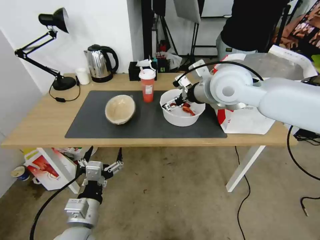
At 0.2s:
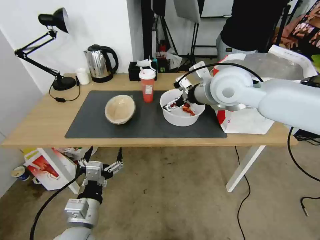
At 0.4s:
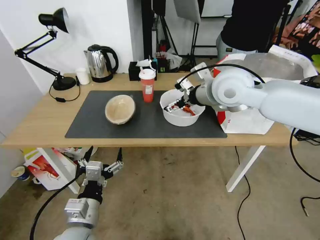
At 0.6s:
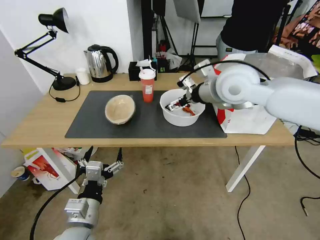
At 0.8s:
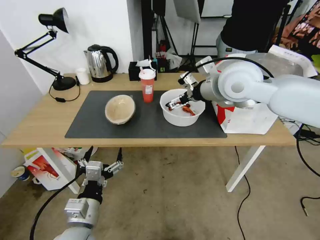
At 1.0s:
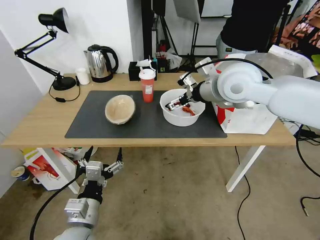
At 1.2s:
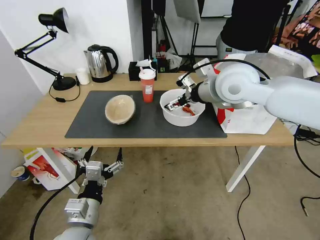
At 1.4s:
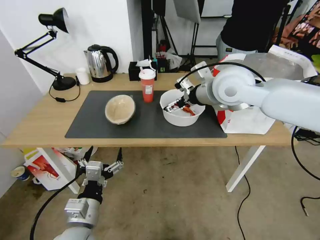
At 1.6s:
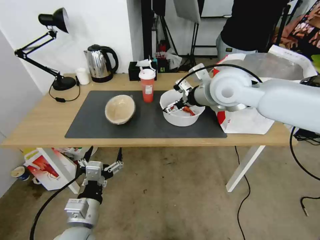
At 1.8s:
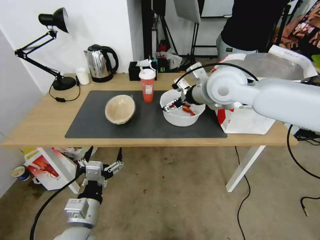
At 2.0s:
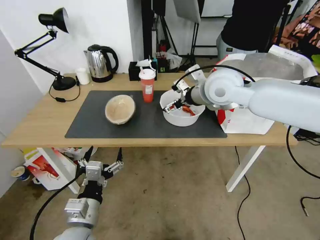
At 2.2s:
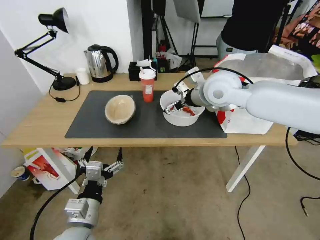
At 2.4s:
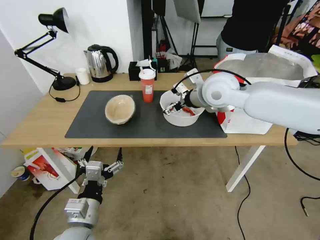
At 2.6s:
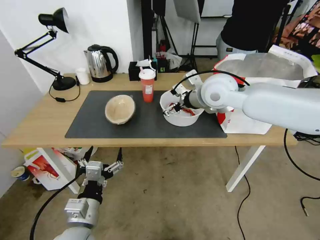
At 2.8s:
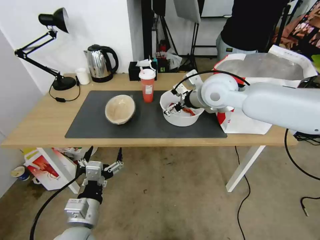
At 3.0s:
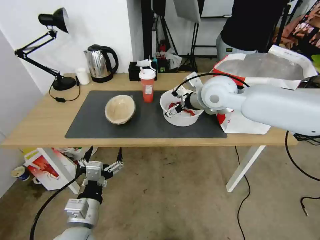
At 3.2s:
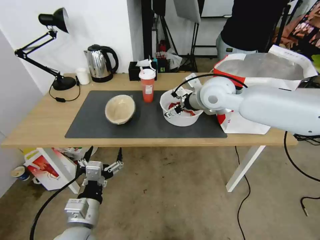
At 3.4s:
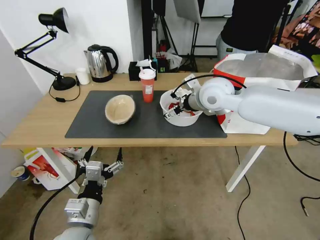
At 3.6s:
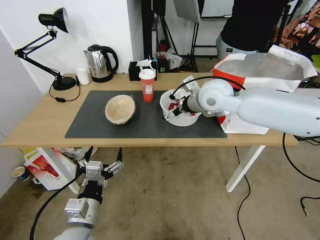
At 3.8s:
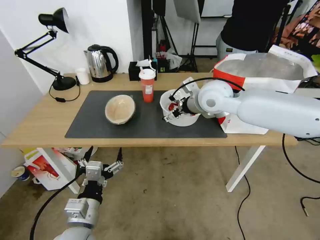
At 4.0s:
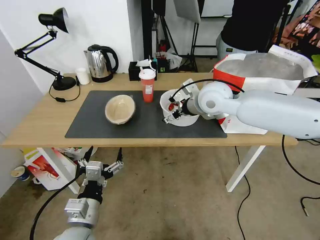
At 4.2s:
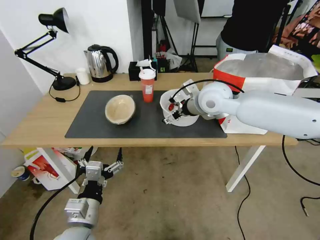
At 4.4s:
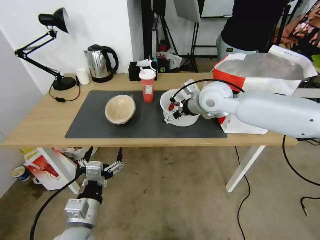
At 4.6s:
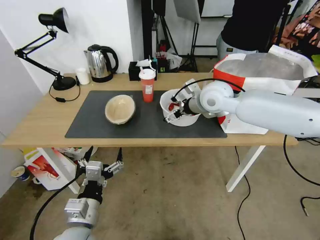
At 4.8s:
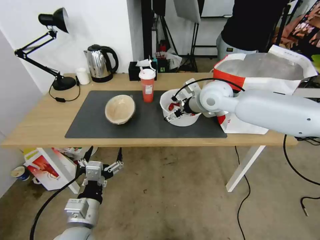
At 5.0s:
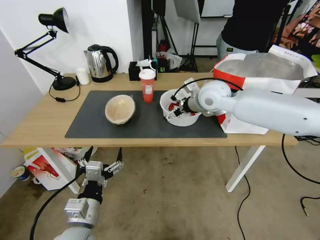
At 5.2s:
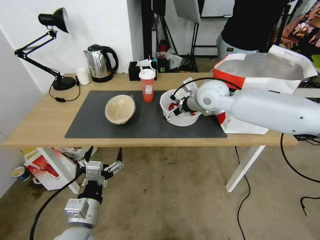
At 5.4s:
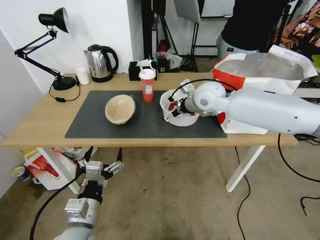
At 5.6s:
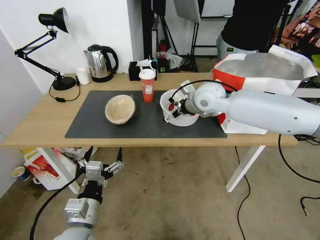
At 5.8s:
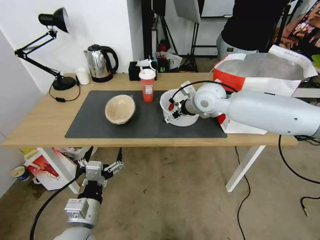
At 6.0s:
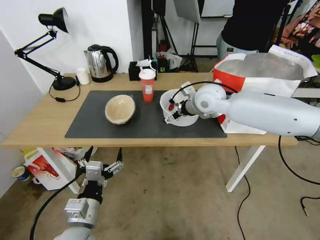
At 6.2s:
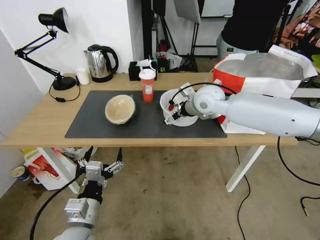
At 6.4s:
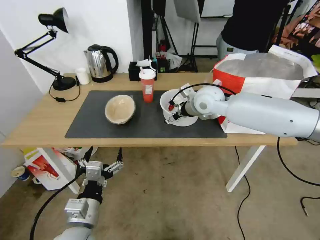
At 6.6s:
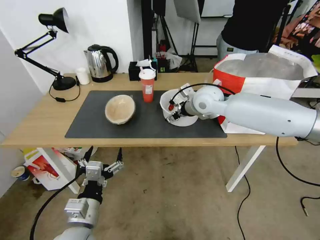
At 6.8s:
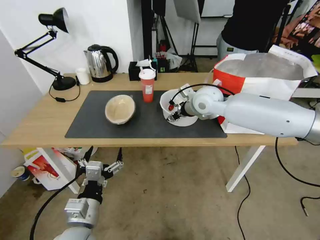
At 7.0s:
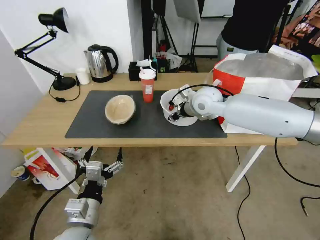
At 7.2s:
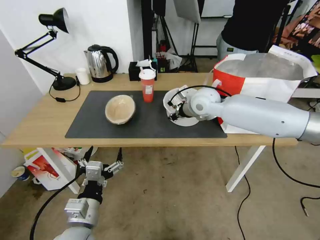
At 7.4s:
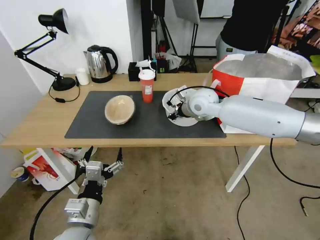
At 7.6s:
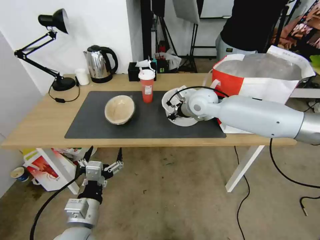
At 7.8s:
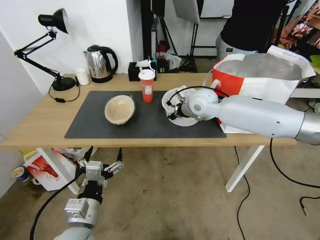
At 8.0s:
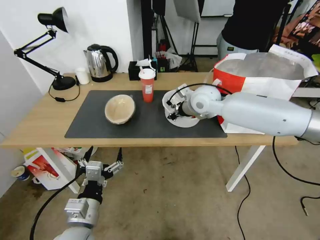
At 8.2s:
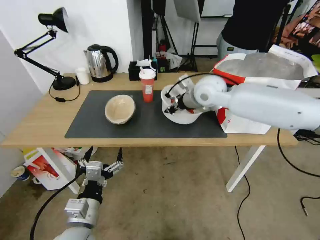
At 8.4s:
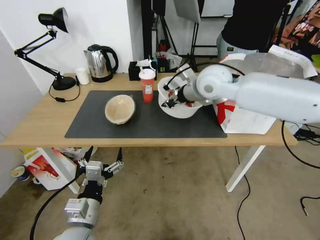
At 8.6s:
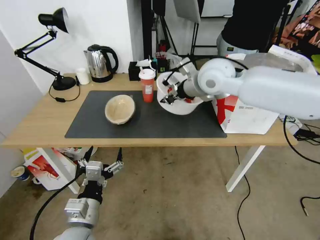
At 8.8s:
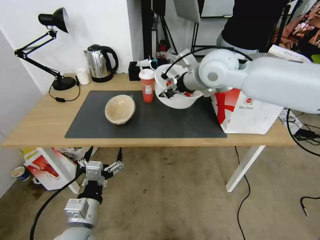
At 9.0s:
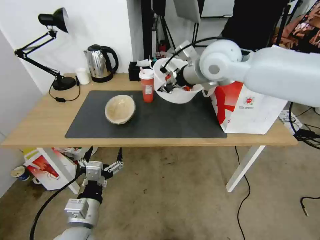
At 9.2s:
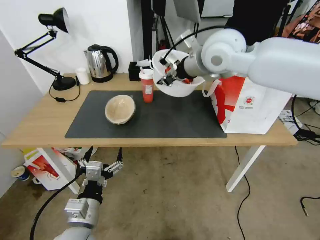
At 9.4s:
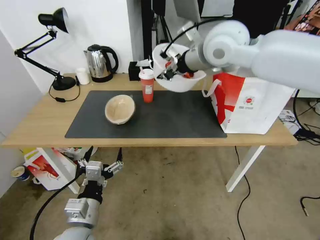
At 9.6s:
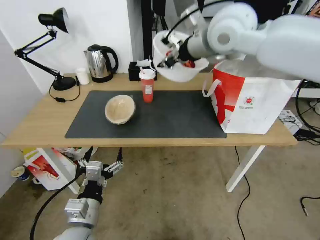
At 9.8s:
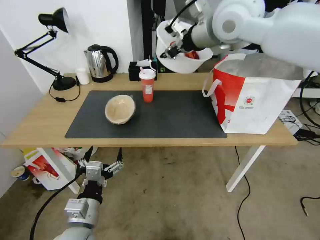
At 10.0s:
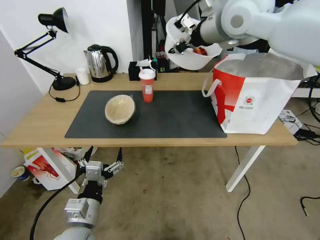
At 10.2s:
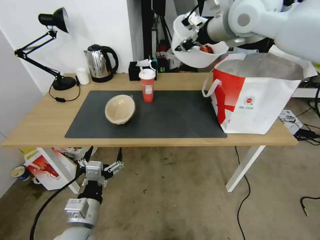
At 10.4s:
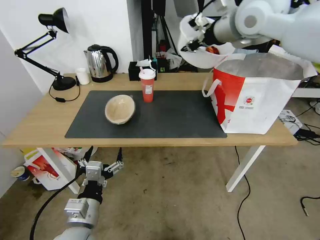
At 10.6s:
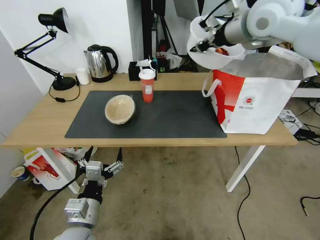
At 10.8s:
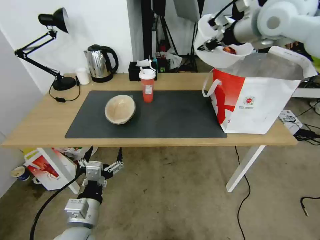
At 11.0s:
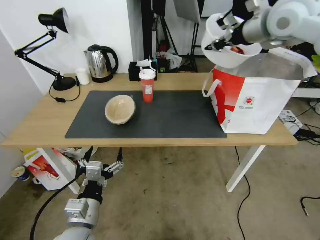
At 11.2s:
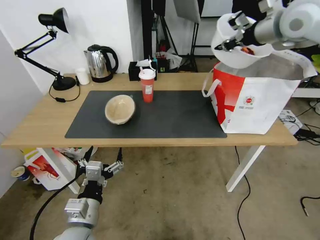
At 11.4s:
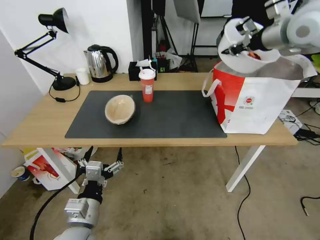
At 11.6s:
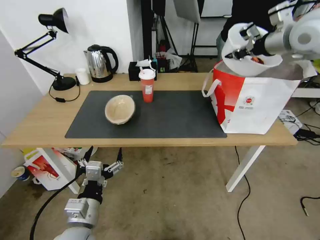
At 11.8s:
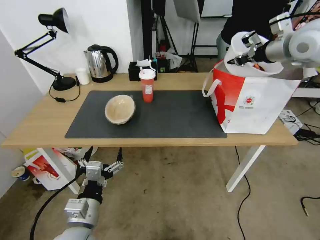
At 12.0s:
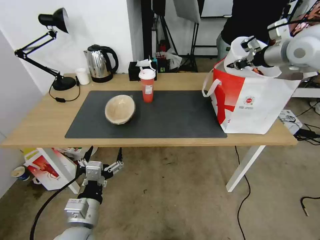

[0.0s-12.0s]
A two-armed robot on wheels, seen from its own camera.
Task of the whole recording: Pick up the trash from the table and place it into the takeout bag.
0.0s to 3.0s: There are only small adjustments of the grippers.
3.0s to 6.0s: The grippers stay close to where they were, moving slightly.
6.0s to 7.6s: The right gripper closes up.
7.6s to 9.0s: The right gripper moves upward, some 15 cm.
9.0s to 10.4s: The right gripper shifts about 10 cm upward and to the right.
10.4s to 12.0s: The right gripper travels to the right and downward by some 15 cm.

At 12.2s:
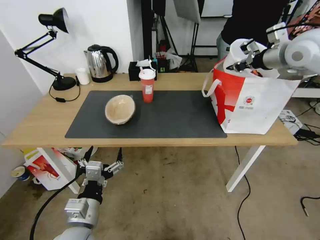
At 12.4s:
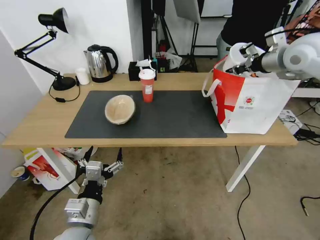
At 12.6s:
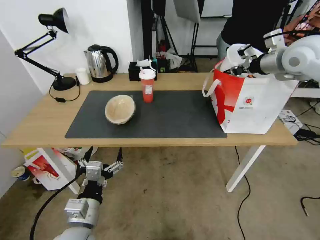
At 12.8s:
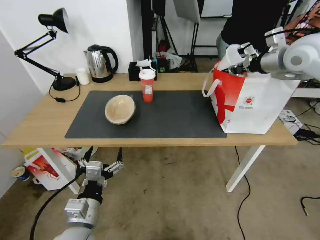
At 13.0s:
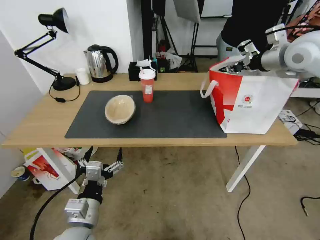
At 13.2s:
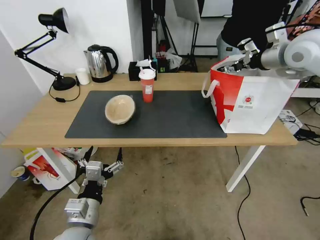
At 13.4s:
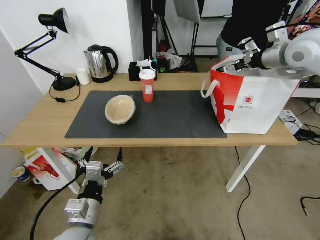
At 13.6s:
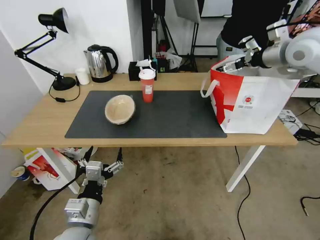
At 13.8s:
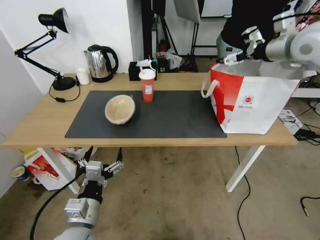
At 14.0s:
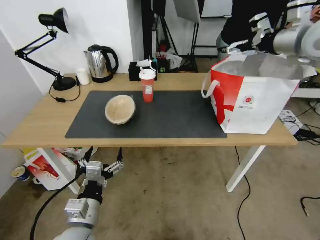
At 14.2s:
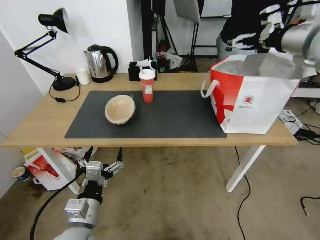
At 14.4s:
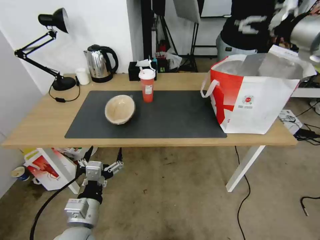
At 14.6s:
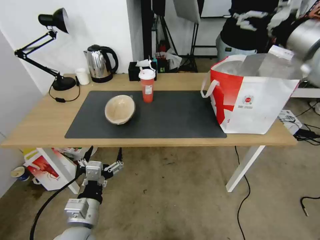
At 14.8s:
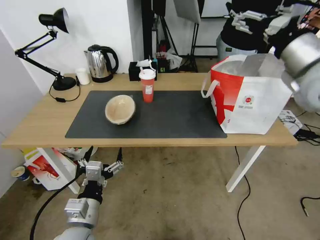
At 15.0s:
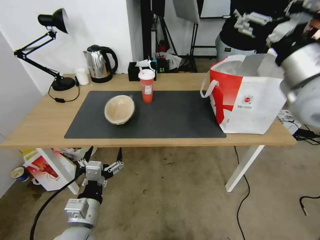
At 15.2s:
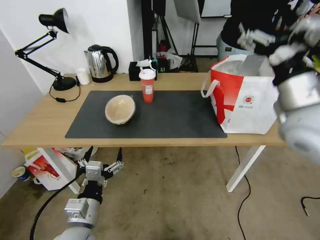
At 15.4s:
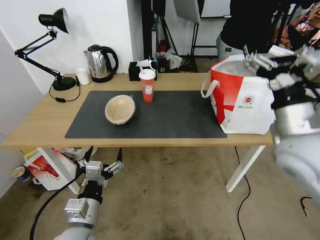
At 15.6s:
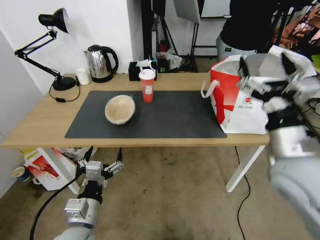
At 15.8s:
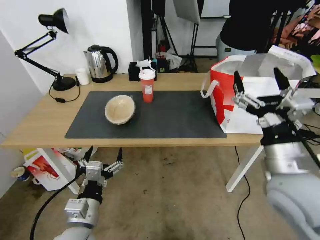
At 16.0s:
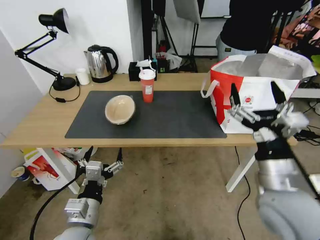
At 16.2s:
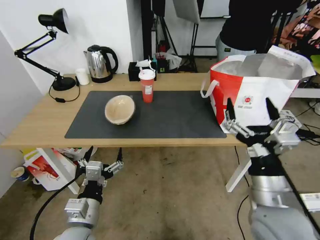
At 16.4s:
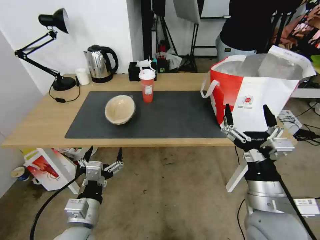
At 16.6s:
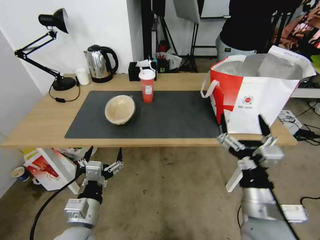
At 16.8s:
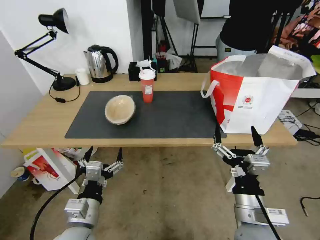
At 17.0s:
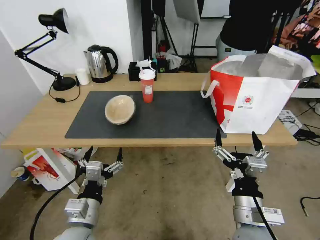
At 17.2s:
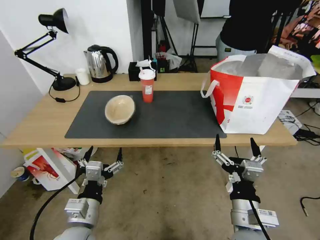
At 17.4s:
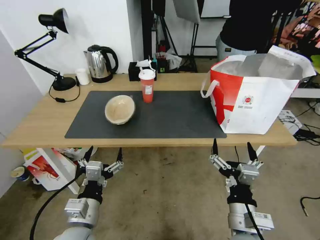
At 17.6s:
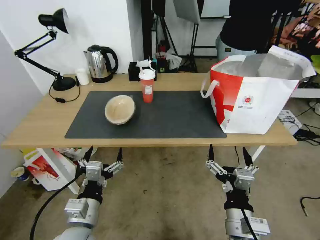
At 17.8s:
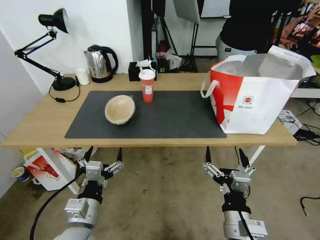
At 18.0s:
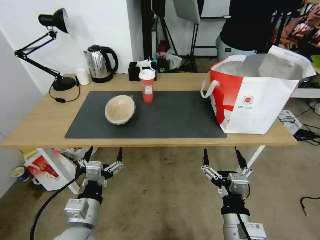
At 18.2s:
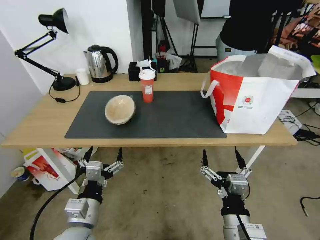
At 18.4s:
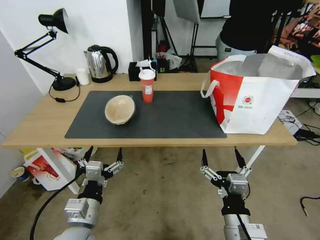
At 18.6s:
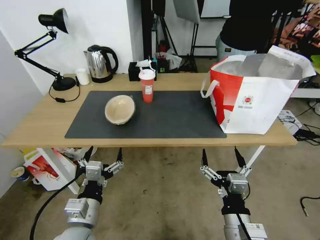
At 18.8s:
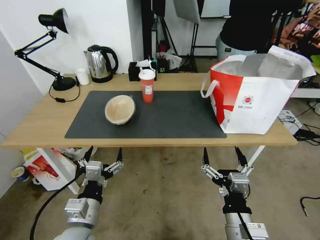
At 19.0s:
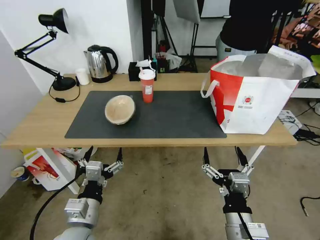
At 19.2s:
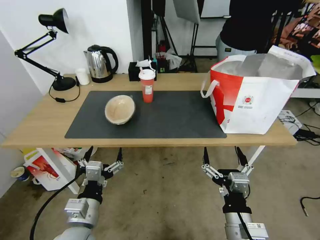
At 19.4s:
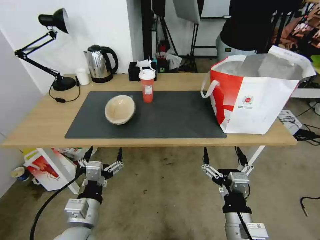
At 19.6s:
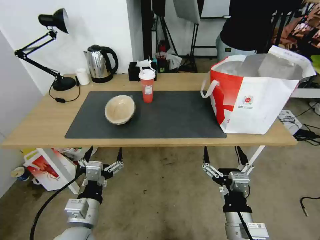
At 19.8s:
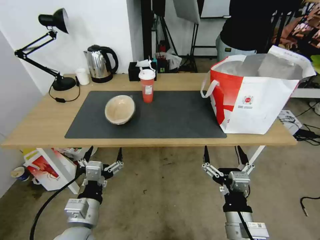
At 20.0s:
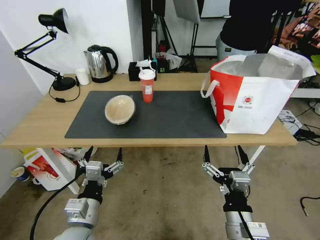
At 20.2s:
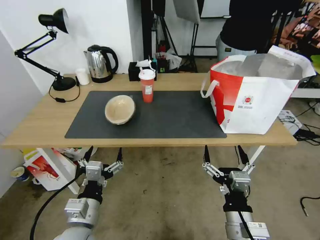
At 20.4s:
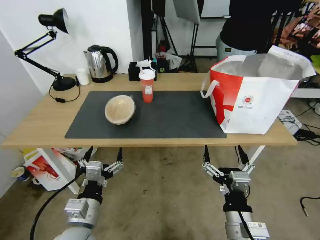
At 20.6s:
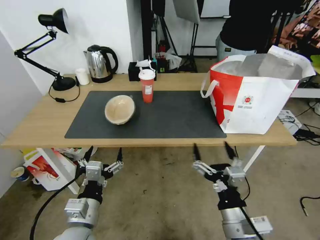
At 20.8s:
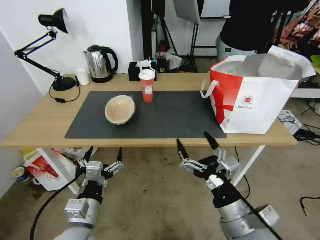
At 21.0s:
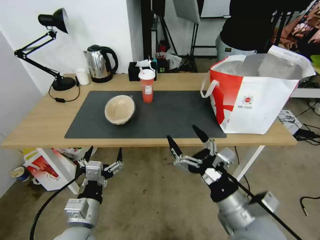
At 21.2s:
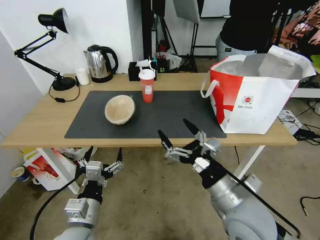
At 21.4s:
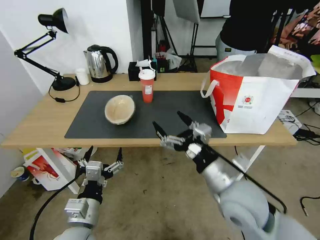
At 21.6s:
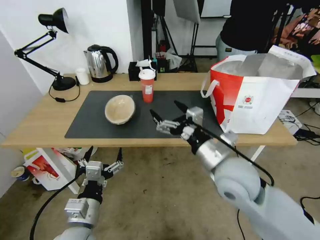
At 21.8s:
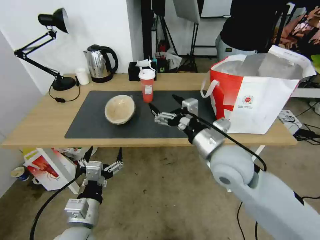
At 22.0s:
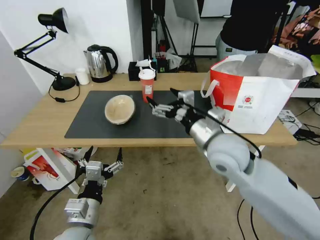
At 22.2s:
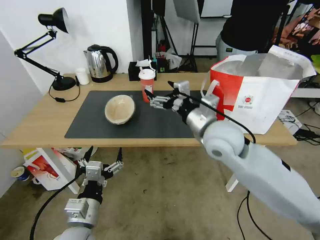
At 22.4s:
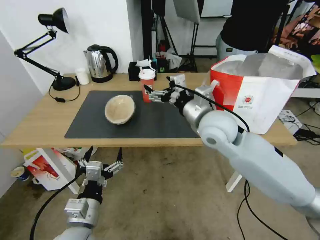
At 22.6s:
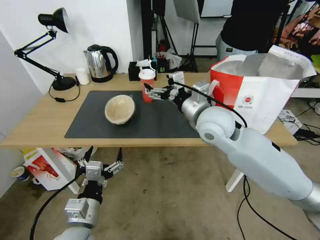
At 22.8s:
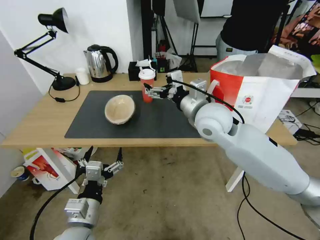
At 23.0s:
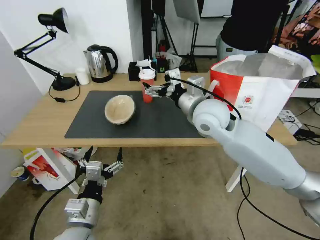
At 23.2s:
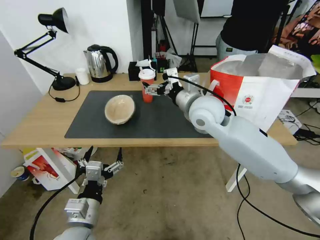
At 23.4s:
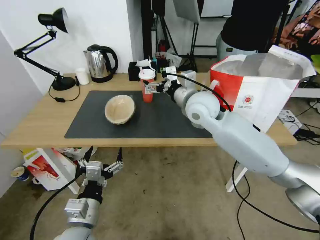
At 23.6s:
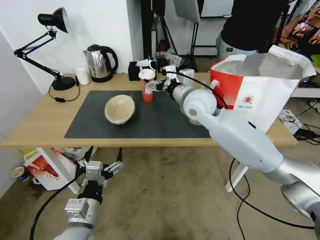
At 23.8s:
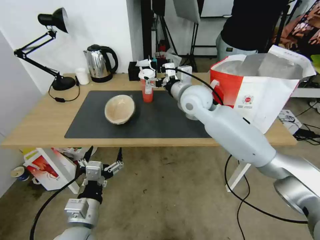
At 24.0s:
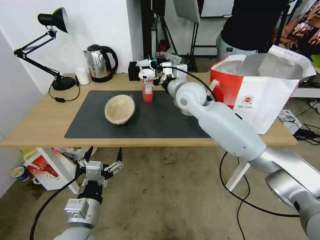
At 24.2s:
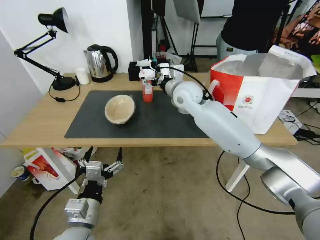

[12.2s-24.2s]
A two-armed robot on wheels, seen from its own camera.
Task of the whole recording: Pick up the trash from the table and place it into the takeout bag.
12.2s to 13.8s: The right gripper opens.
13.8s to 15.2s: The right gripper moves backward, downward and to the left, roughly 20 cm.
15.2s to 16.6s: The right gripper travels downward, backward and to the left by approximately 25 cm.
16.6s to 18.2s: The right gripper heads downward, covering some 5 cm.
18.2s to 19.8s: The two grippers keep their place.
19.8s to 21.2s: The right gripper goes about 10 cm upward and forward.
21.2s to 22.6s: The right gripper moves forward and upward, some 25 cm.
22.6s to 24.2s: The right gripper heads forward, covering some 15 cm.
